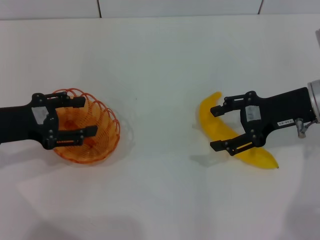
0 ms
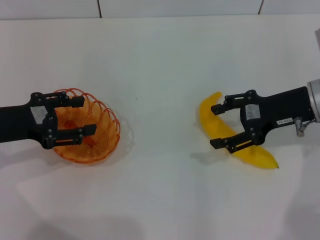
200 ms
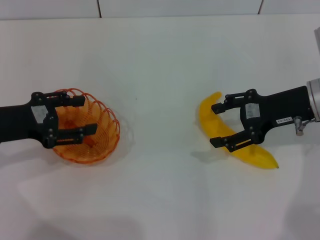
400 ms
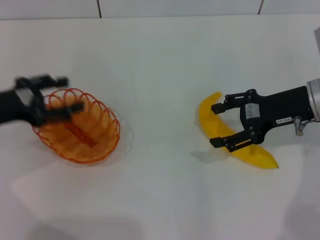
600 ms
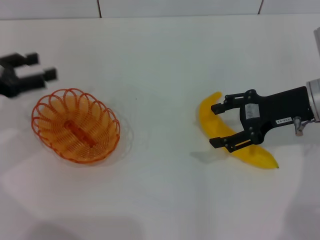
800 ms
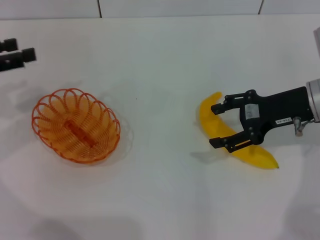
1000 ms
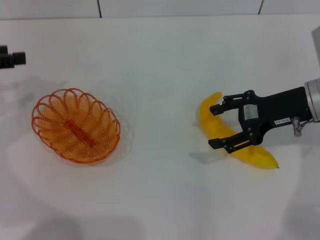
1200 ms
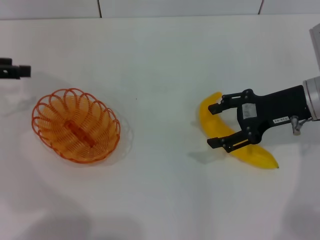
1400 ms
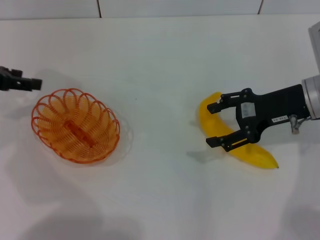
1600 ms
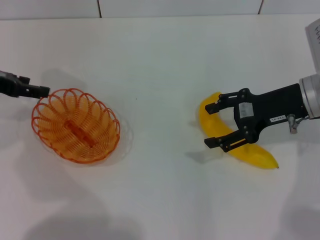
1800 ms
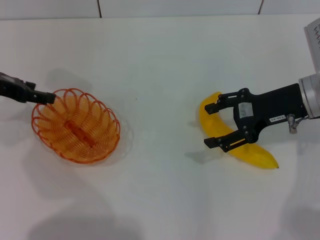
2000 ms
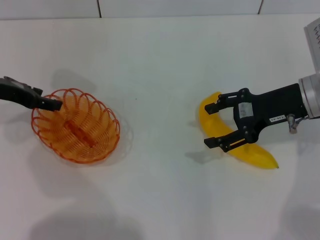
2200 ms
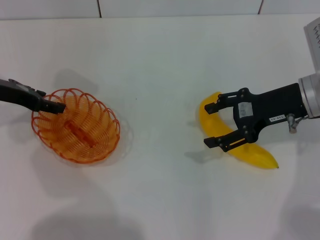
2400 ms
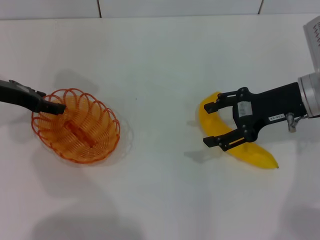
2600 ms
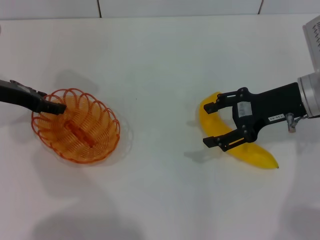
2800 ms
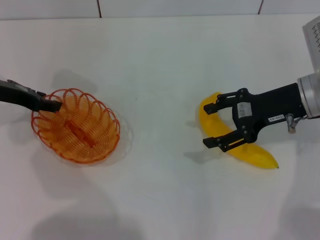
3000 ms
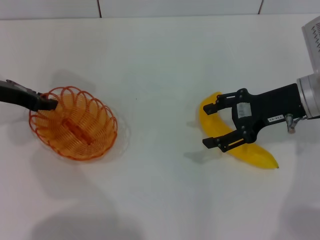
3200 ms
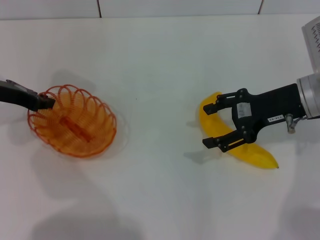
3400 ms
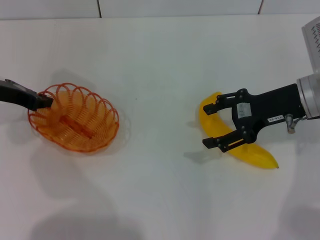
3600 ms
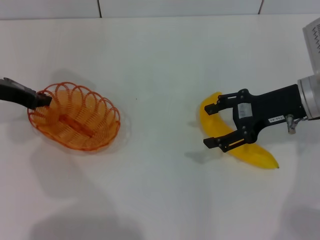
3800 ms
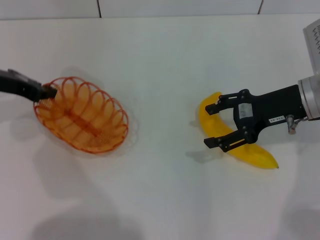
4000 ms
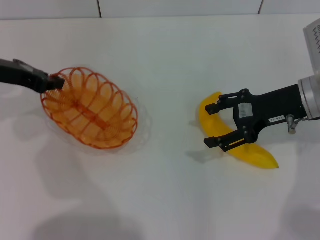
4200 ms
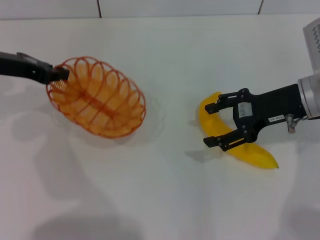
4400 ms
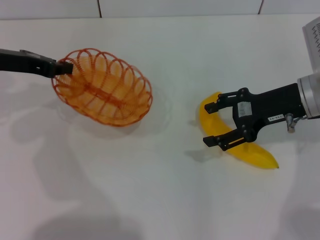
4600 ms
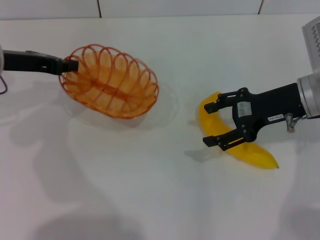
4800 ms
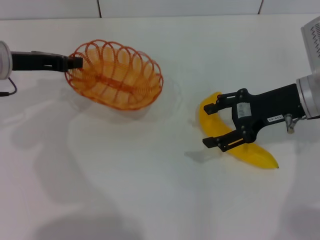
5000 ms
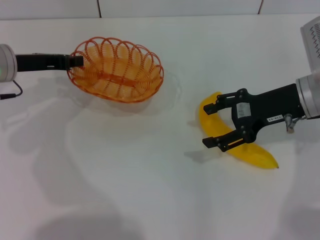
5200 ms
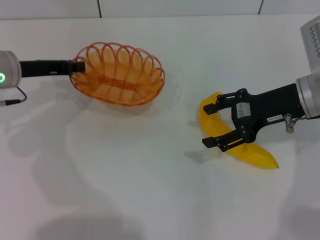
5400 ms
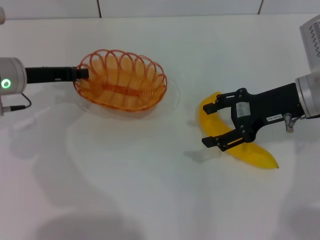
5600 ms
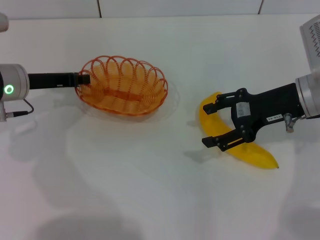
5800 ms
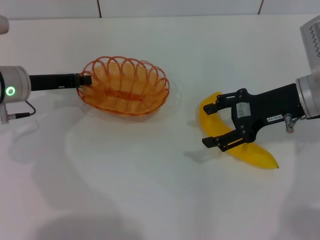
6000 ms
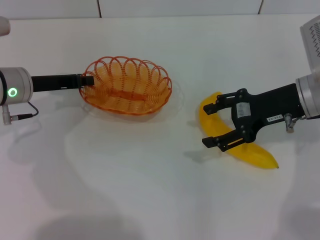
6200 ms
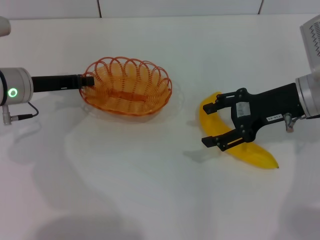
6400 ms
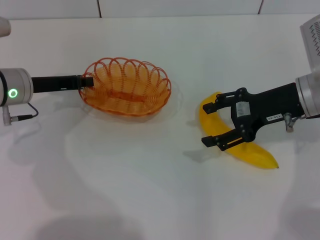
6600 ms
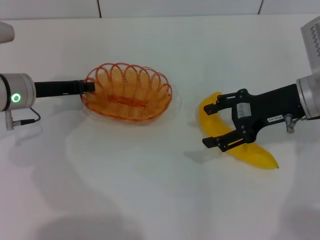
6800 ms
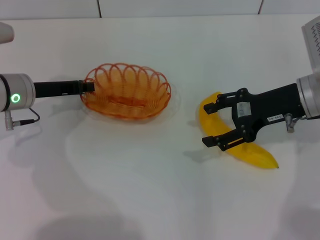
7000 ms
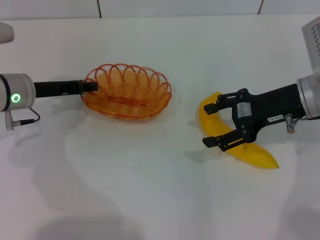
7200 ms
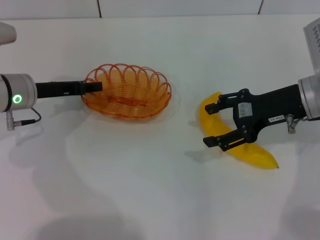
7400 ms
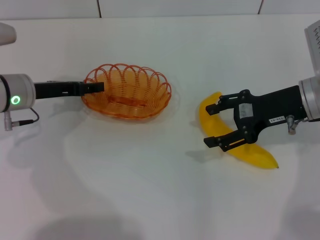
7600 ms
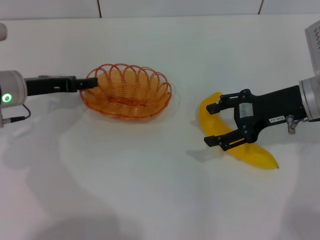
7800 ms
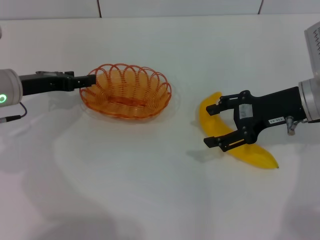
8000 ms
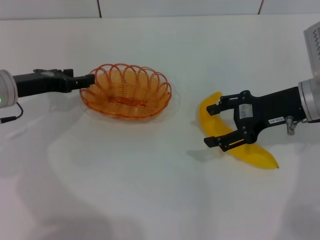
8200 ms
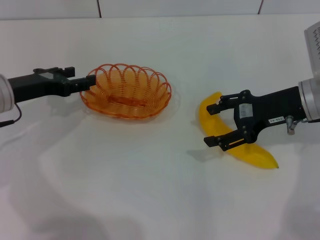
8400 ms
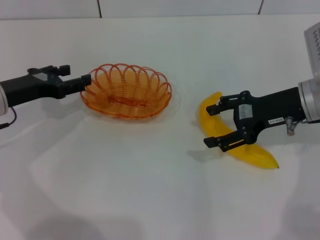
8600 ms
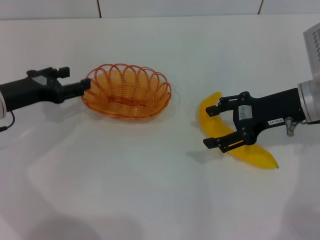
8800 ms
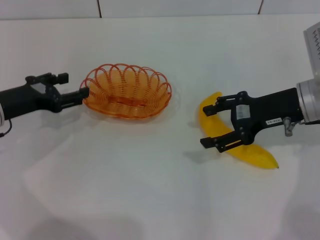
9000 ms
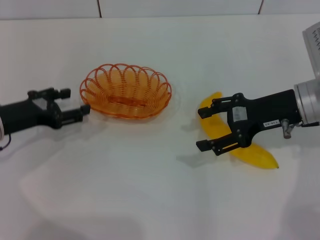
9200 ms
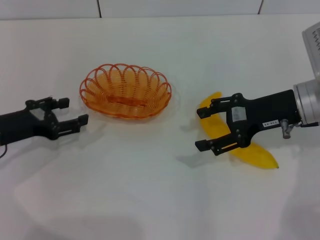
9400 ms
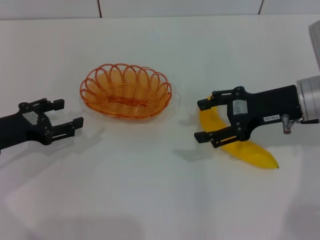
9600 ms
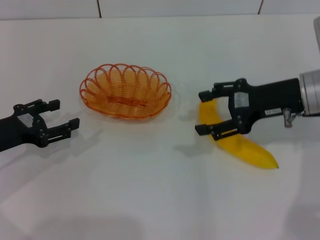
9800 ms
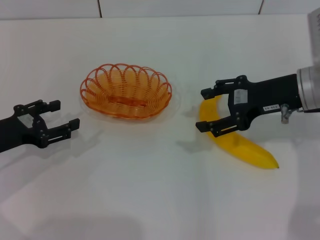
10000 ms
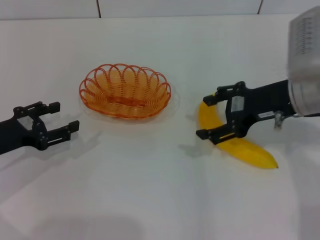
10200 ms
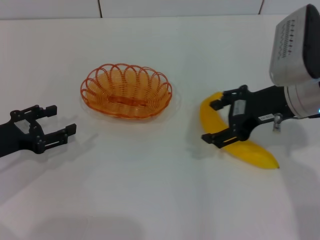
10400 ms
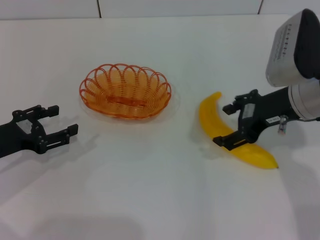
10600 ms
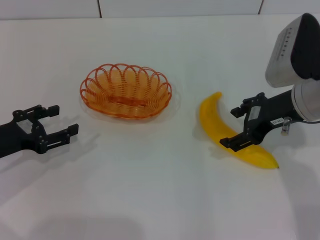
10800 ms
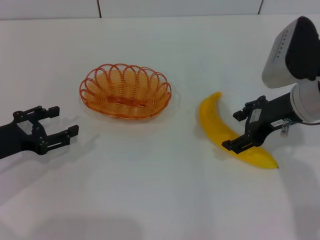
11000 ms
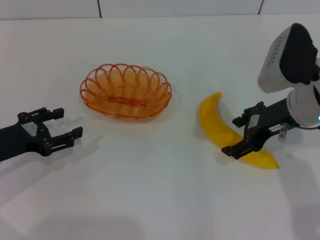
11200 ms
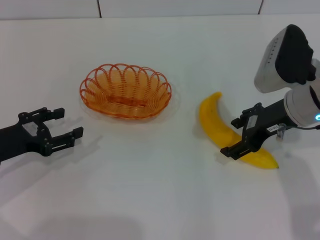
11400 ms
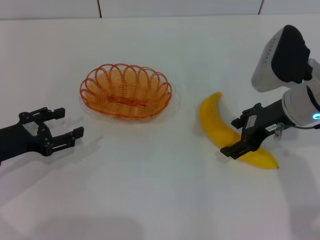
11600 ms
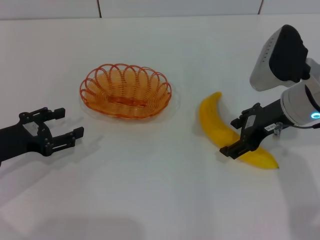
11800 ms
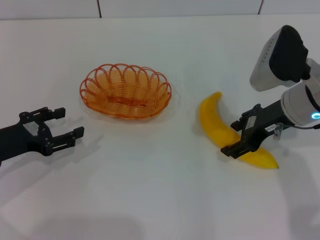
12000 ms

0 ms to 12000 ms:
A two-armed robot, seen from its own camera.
Step, 0 ms to 4200 ms: Pick up the basket with the left gripper.
Step, 4400 ms to 8400 ms: Place the basket in the center of view with the left gripper.
0 ms to 1600 ms: The left gripper is displaced forward and upward by approximately 10 cm.
1600 ms to 3000 ms: The left gripper shifts by approximately 5 cm.
3000 ms to 4400 ms: The left gripper closes up.
4400 ms to 6000 ms: The left gripper is displaced downward by approximately 5 cm.
6000 ms to 7600 ms: The left gripper opens up.
7600 ms to 9000 ms: The left gripper moves approximately 5 cm.
9000 ms to 10400 ms: The right gripper changes place by some 5 cm. Meanwhile the left gripper goes roughly 5 cm backward.
10400 ms to 12000 ms: There are only small adjustments of the grippers.

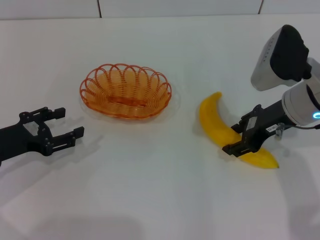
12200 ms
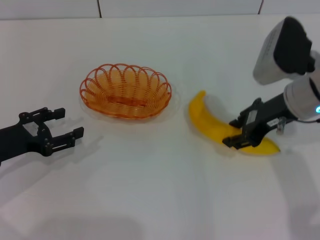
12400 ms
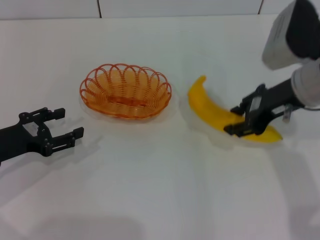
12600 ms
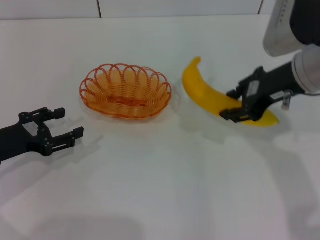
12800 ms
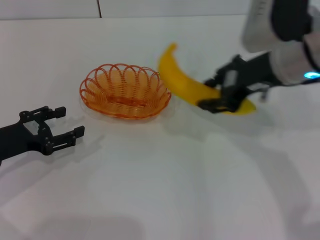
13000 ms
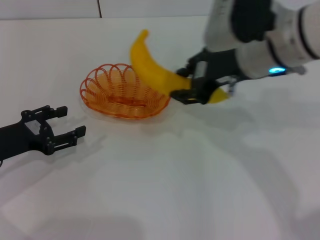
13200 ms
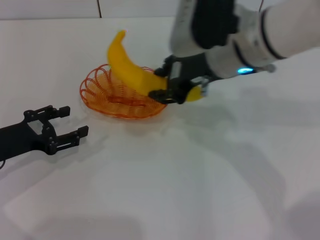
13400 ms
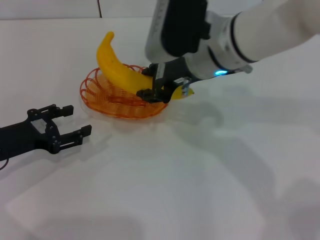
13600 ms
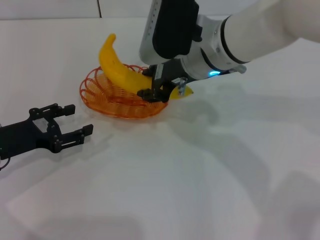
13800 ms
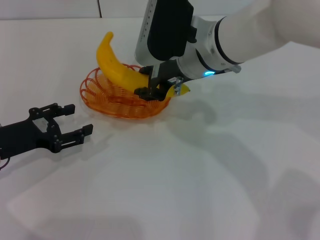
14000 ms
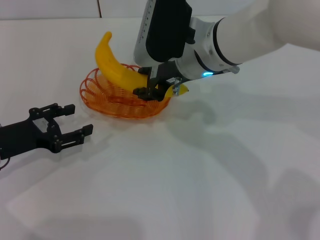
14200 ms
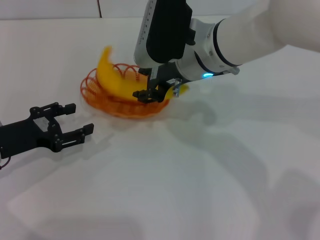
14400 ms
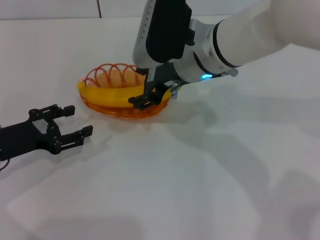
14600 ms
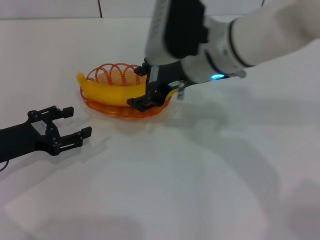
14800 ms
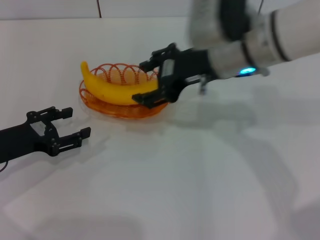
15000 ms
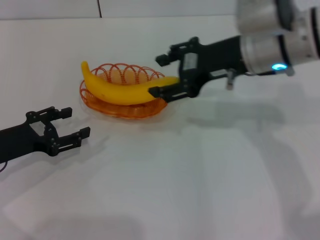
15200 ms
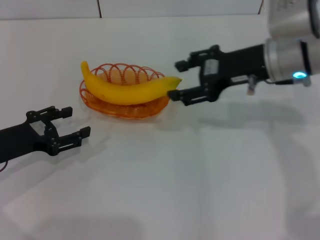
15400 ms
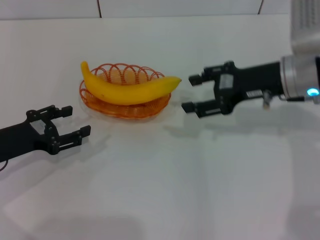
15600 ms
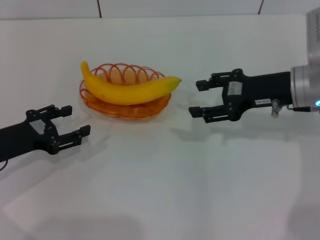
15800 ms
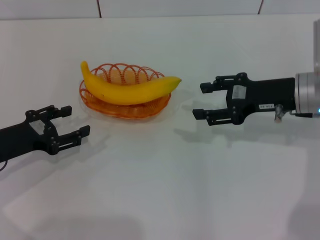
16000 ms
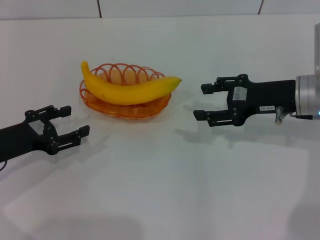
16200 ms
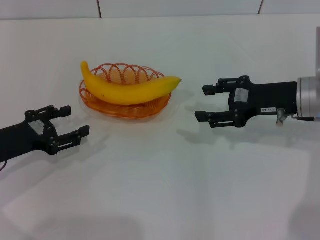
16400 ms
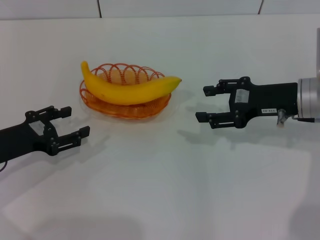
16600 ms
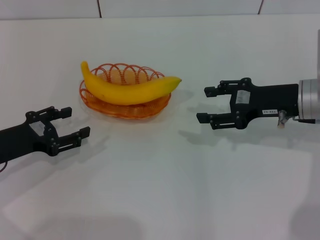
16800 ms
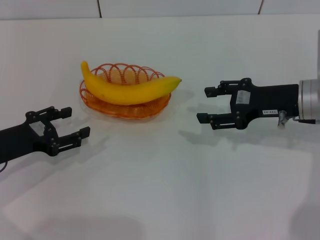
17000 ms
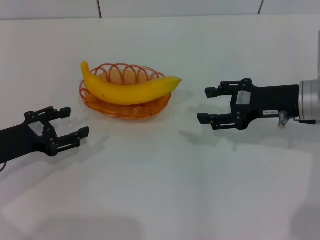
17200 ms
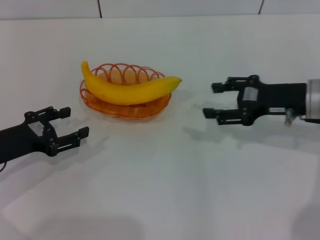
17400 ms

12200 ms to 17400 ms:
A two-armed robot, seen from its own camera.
Step, 12800 ms to 15200 ms: Place the banana into the basket with the right gripper.
12200 ms to 14000 ms: The right gripper moves to the left, roughly 15 cm, and closes up.
14000 ms to 15600 ms: The right gripper shifts about 15 cm to the right, and opens.
15600 ms to 17400 ms: The right gripper changes place by some 5 cm.

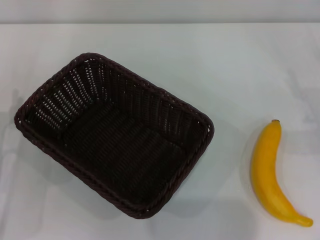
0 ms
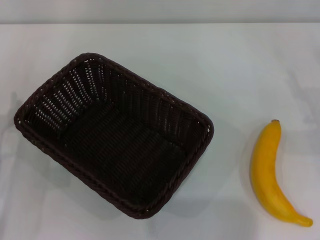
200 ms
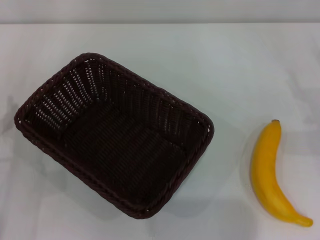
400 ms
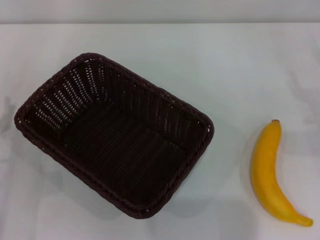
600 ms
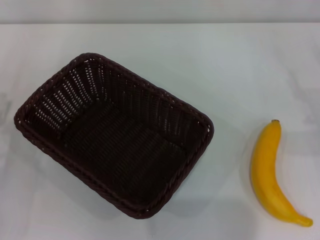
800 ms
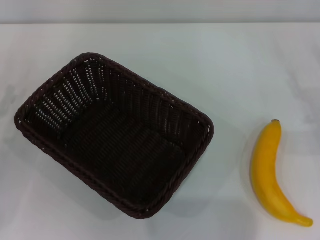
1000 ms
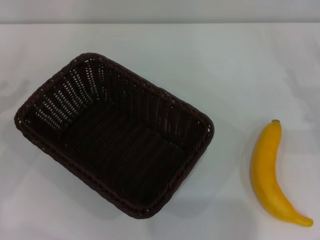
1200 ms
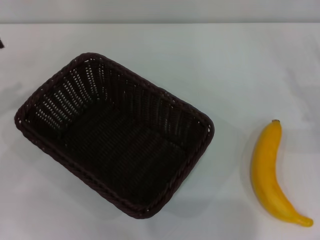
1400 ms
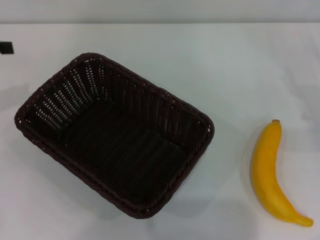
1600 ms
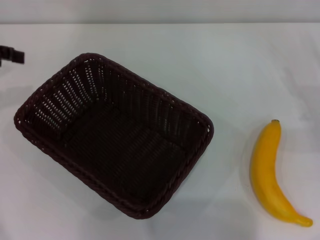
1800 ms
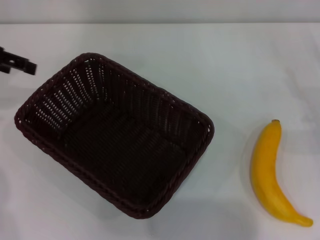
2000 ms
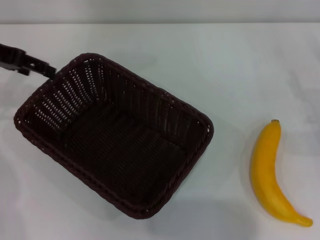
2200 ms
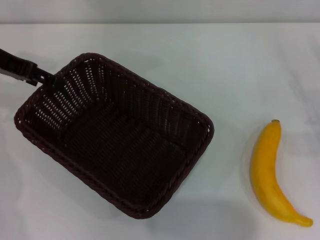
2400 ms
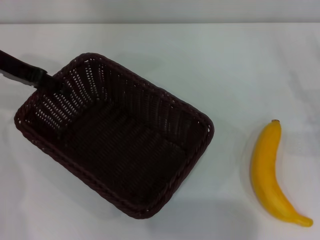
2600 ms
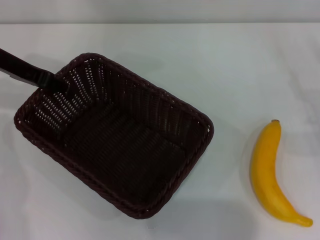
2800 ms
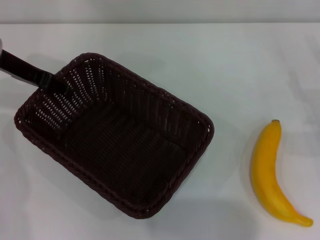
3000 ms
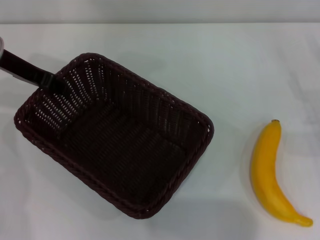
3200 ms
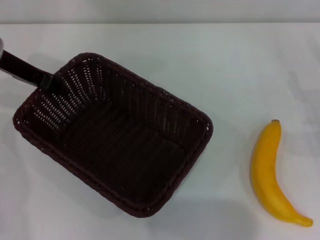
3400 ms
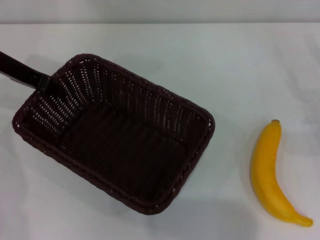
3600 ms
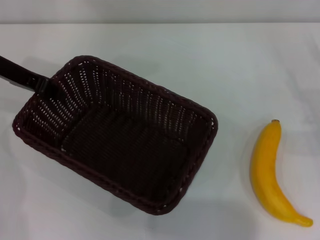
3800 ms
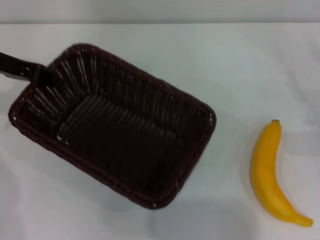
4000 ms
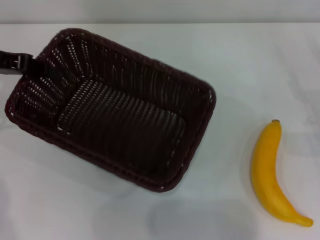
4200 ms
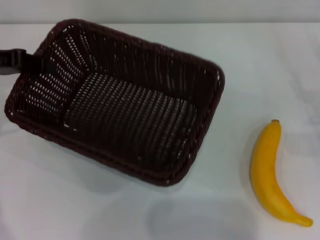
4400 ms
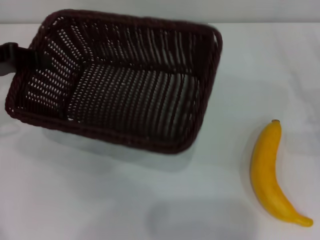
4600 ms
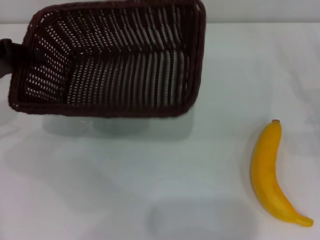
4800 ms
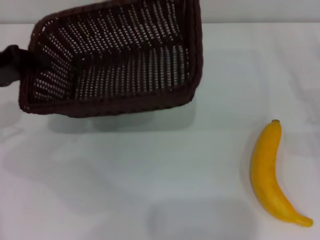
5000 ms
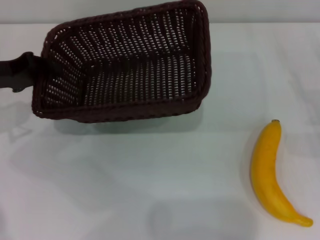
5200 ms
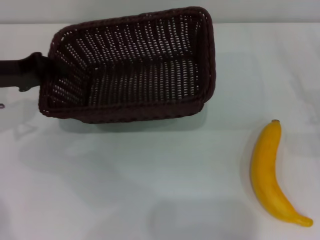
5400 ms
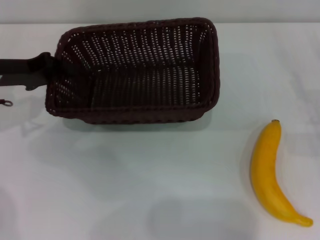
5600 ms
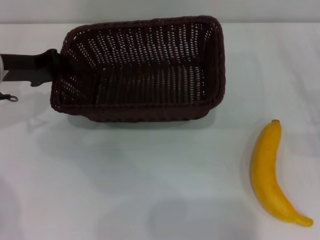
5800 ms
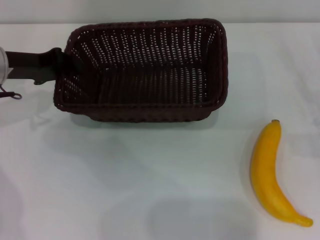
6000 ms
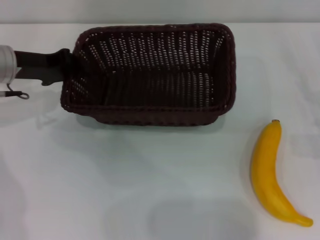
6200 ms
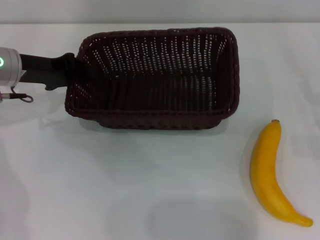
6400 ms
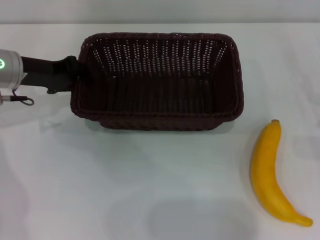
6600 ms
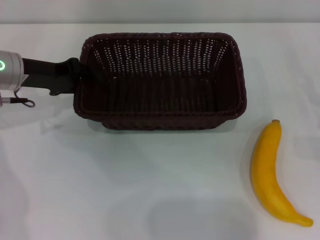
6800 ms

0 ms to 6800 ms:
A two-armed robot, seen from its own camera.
Step, 0 ms to 3800 ms: Pick up the dark basket with the left gripper.
1400 ms to 2800 ms: The left gripper heads to the right and forward, covering approximately 15 cm.
2800 ms to 4000 ms: The left gripper closes its fingers.
4000 ms to 5400 ms: The left gripper heads downward, covering some 5 cm.
5400 ms to 6800 ms: The left gripper changes place by roughly 5 cm.
